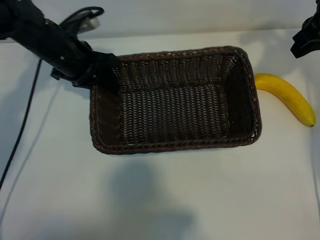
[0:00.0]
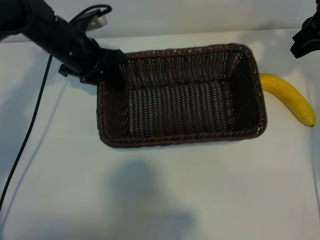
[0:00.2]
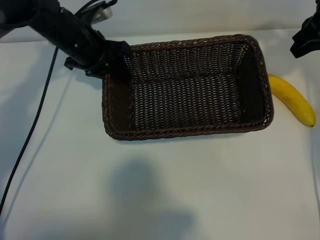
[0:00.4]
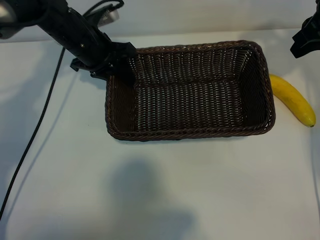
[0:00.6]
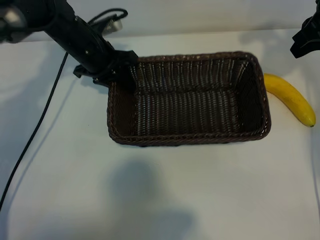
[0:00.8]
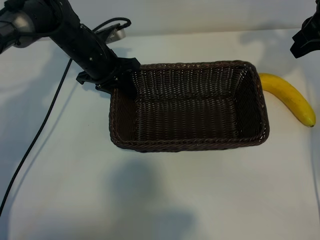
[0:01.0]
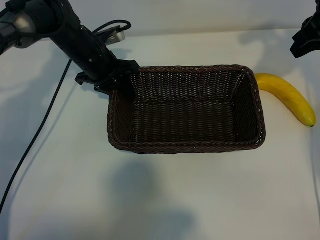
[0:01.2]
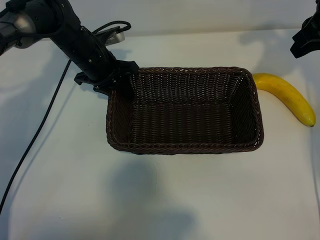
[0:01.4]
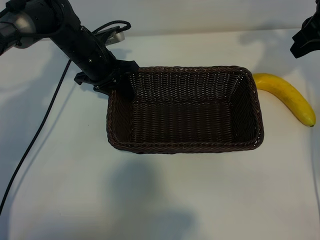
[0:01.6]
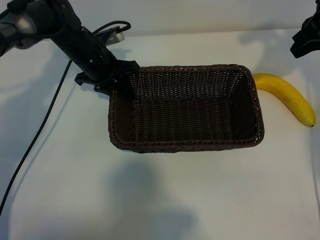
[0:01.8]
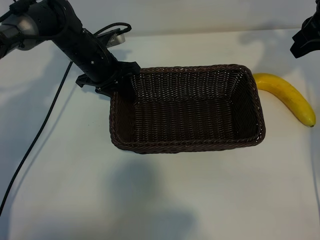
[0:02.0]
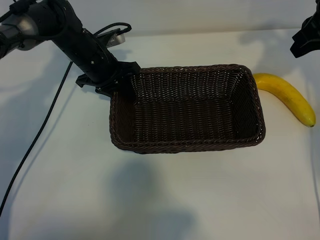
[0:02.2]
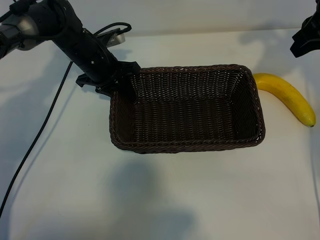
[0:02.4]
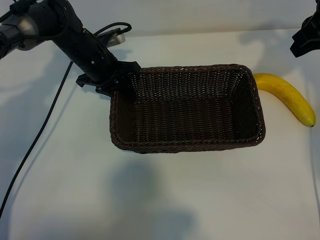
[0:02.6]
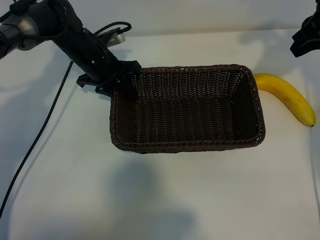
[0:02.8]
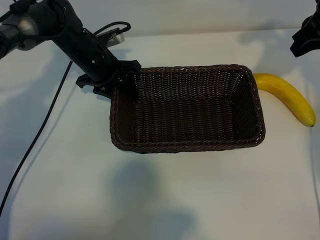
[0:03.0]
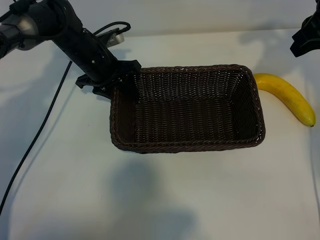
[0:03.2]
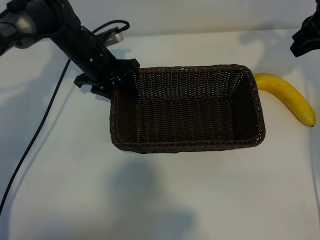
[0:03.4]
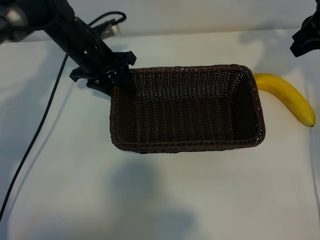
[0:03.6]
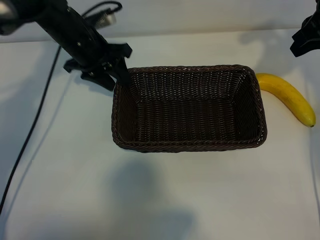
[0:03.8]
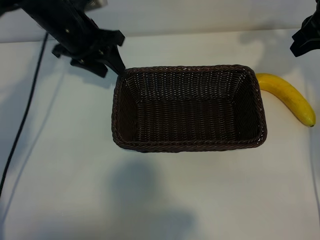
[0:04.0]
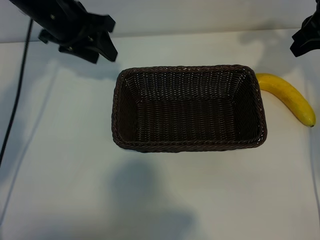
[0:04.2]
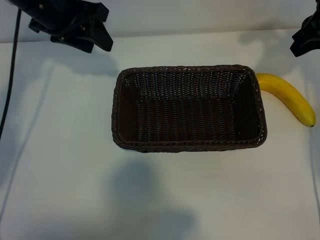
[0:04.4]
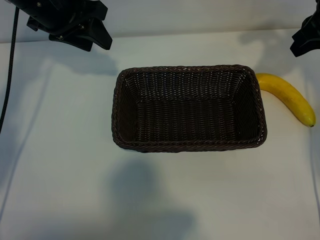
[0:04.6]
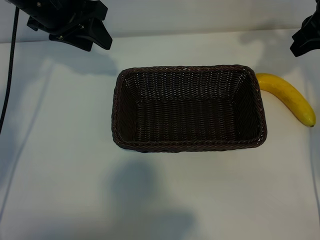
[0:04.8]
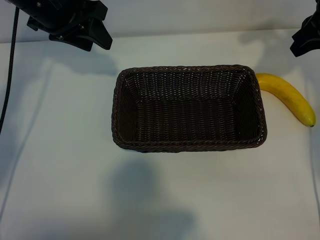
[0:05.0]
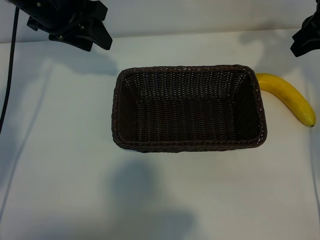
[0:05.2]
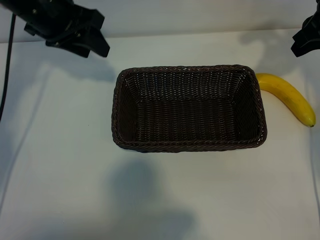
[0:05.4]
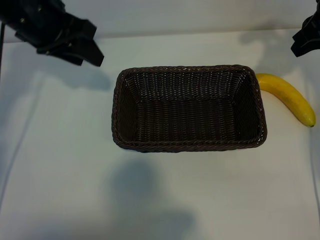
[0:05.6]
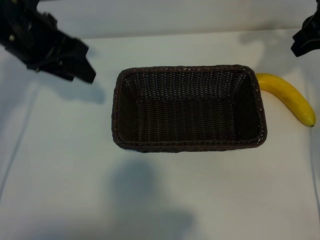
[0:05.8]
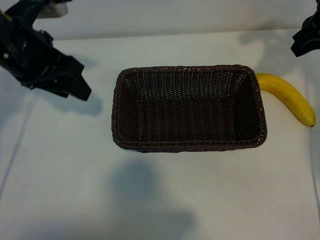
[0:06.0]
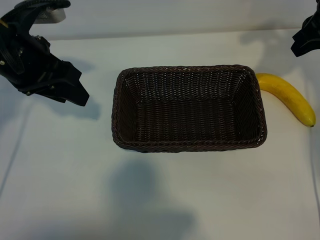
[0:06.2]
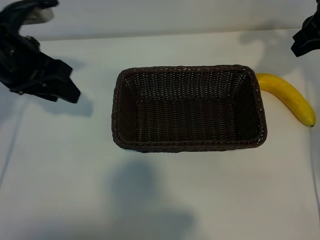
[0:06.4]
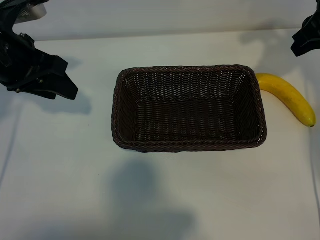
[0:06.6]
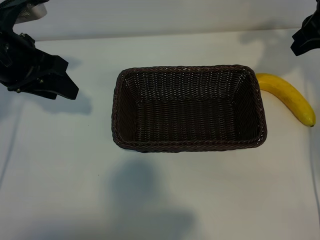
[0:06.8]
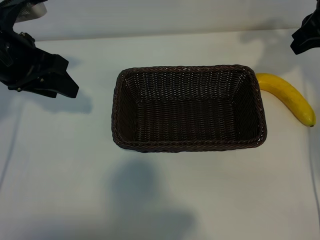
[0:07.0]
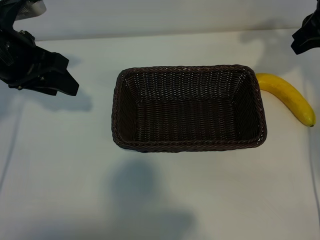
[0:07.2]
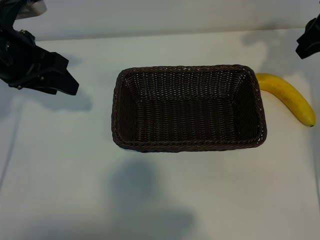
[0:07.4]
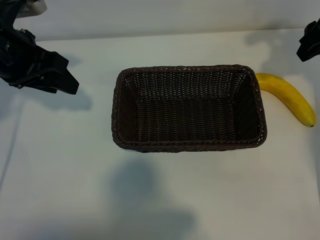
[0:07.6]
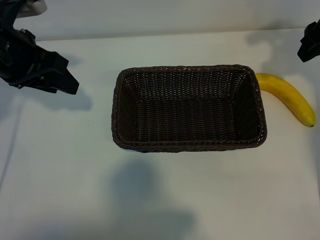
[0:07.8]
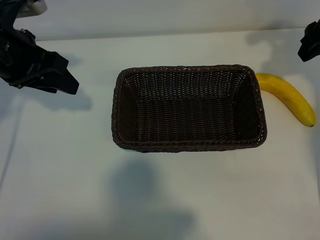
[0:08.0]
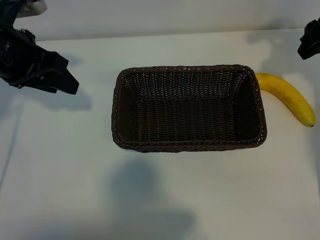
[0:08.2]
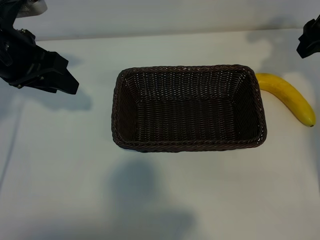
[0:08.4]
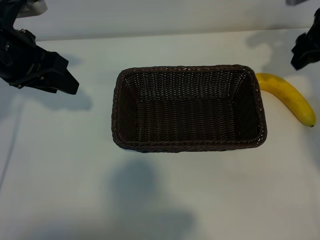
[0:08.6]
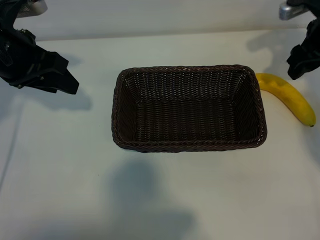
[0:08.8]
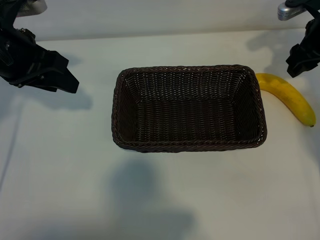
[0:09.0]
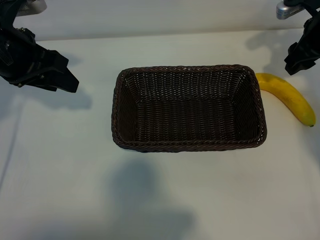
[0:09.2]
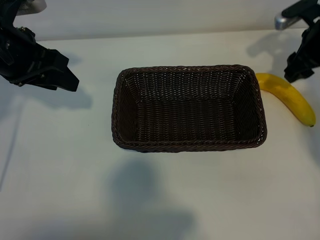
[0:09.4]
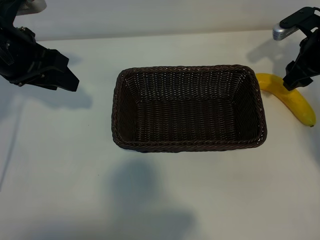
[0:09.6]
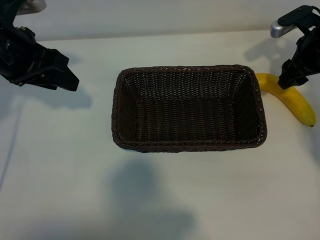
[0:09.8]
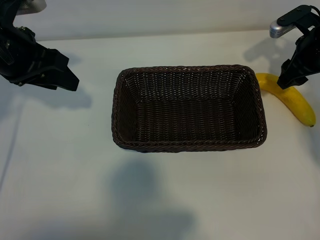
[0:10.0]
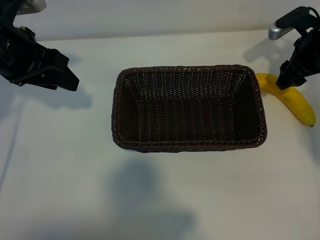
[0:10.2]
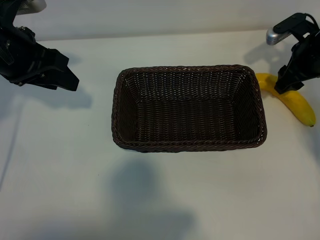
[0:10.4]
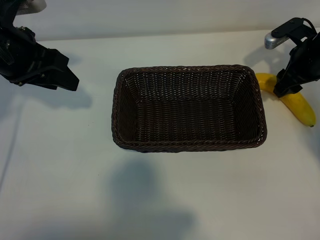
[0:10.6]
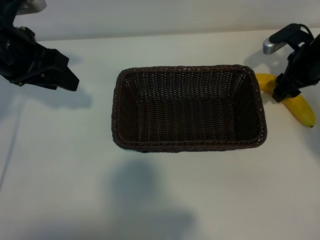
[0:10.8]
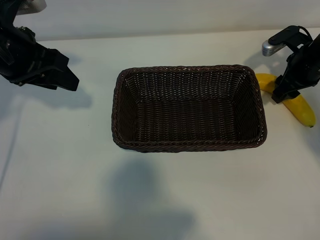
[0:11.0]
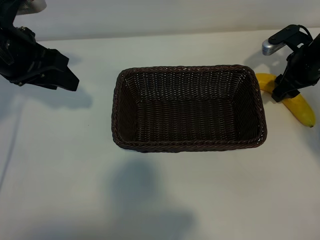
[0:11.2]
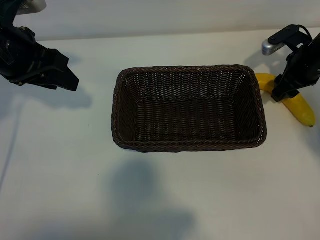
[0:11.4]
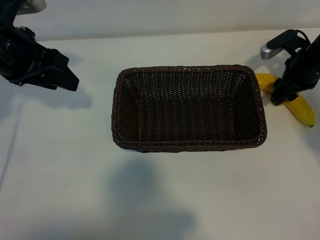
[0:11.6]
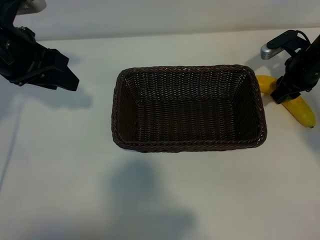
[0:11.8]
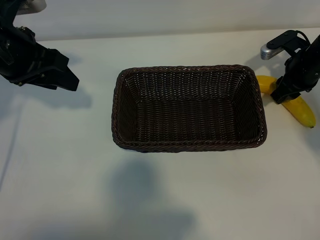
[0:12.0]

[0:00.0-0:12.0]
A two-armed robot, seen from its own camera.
Task of the whole recording: pick up the banana and put it into the basket.
Step, 0:00.0 to 0:03.6: Place the basket in the center of the table with the left gripper.

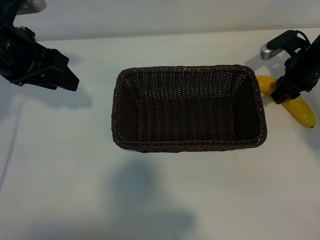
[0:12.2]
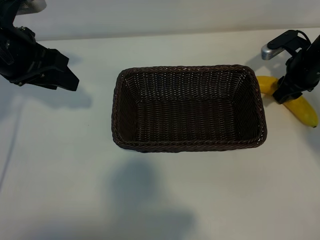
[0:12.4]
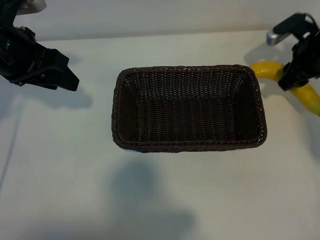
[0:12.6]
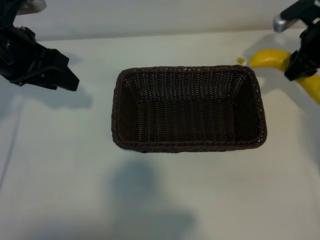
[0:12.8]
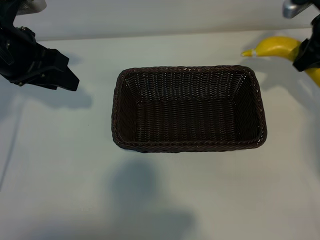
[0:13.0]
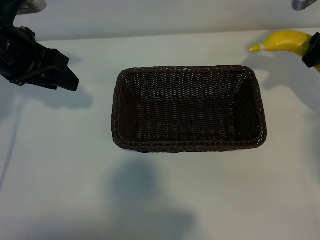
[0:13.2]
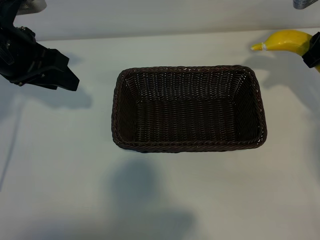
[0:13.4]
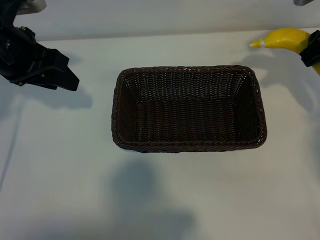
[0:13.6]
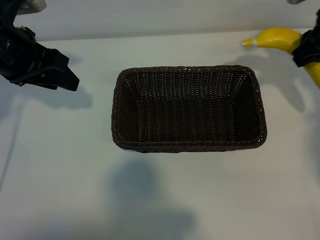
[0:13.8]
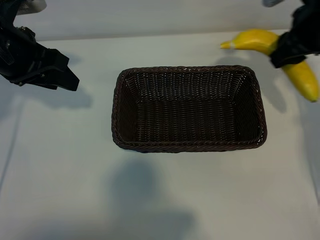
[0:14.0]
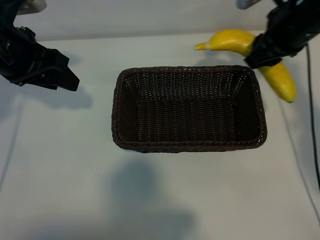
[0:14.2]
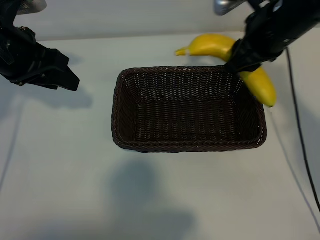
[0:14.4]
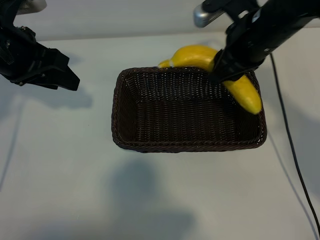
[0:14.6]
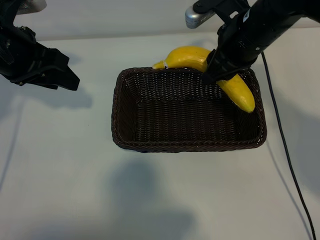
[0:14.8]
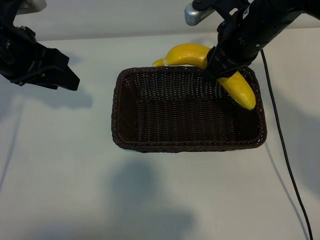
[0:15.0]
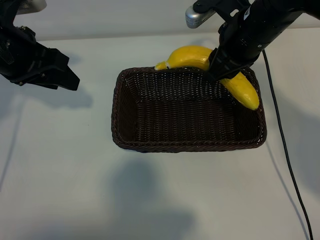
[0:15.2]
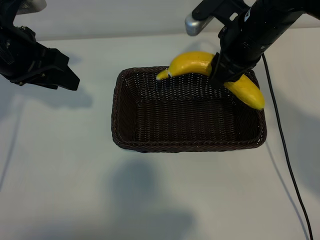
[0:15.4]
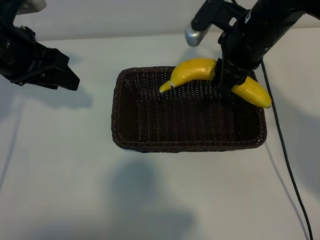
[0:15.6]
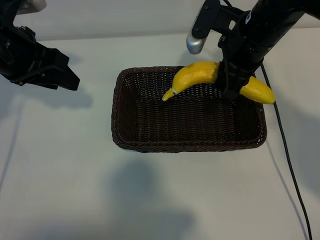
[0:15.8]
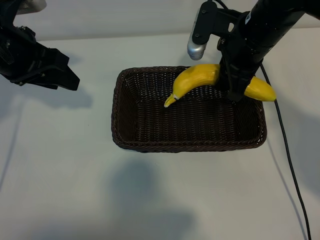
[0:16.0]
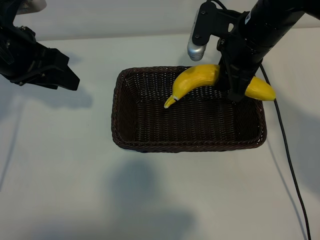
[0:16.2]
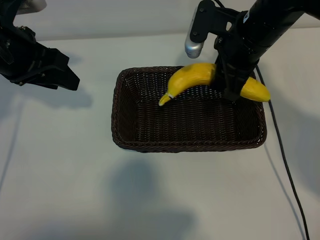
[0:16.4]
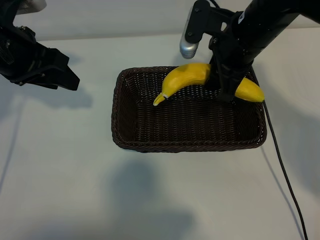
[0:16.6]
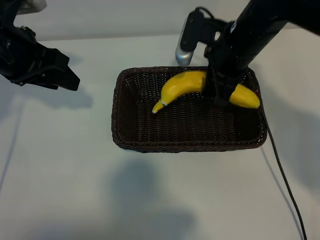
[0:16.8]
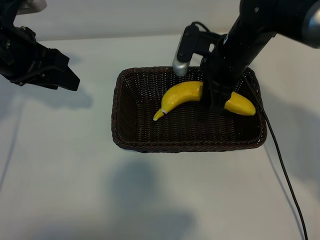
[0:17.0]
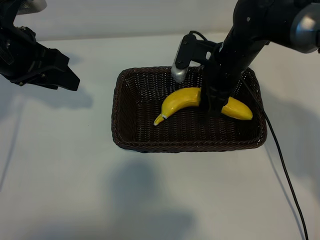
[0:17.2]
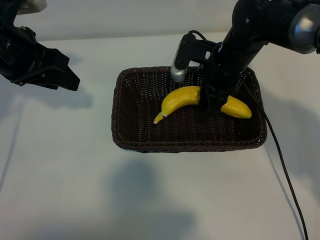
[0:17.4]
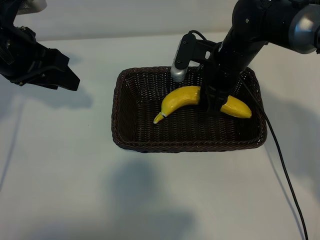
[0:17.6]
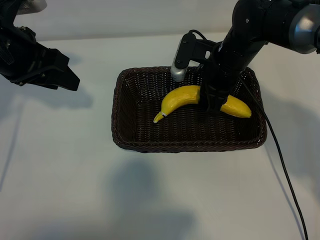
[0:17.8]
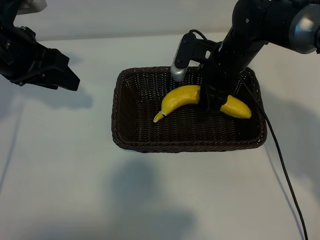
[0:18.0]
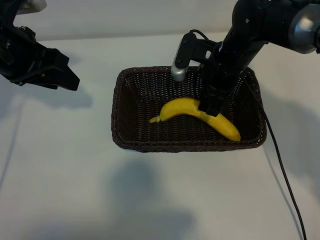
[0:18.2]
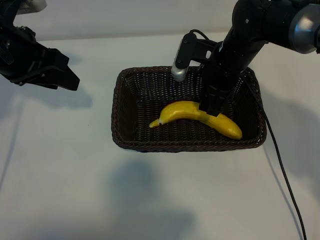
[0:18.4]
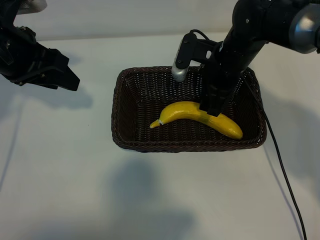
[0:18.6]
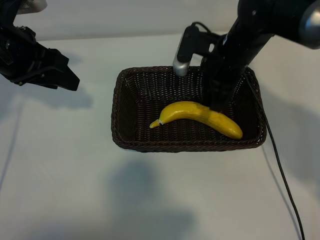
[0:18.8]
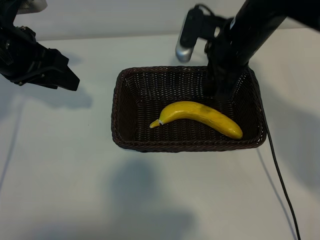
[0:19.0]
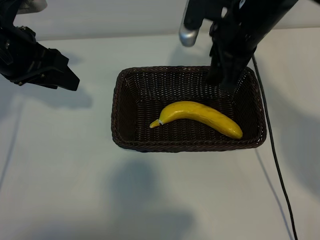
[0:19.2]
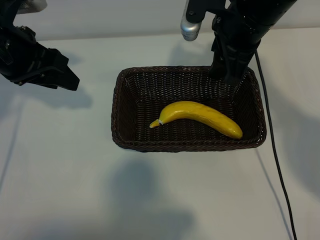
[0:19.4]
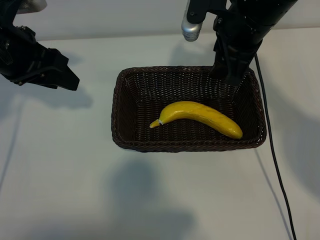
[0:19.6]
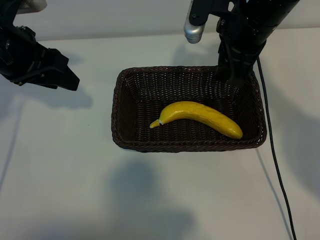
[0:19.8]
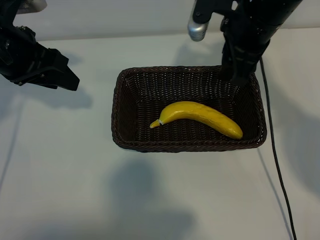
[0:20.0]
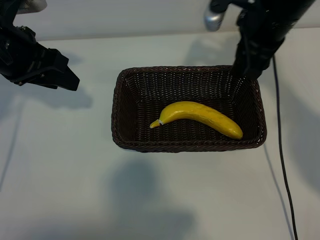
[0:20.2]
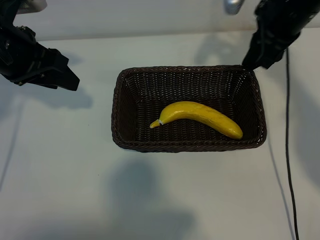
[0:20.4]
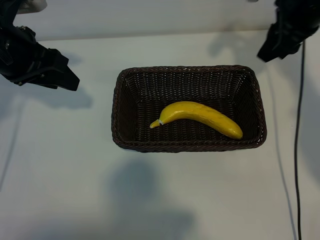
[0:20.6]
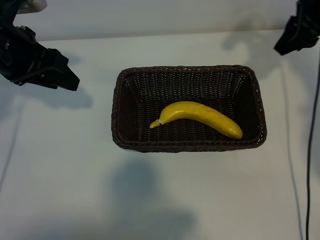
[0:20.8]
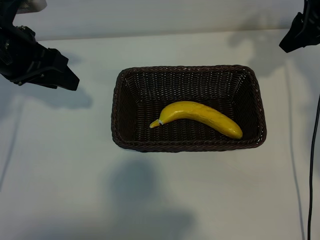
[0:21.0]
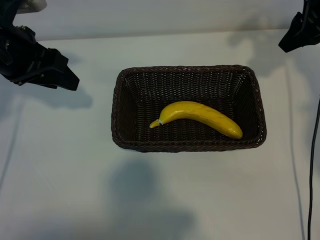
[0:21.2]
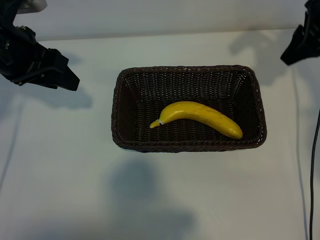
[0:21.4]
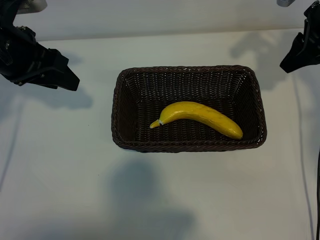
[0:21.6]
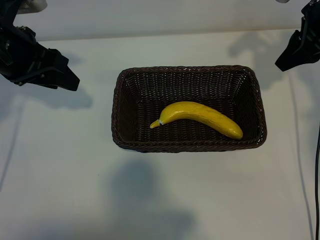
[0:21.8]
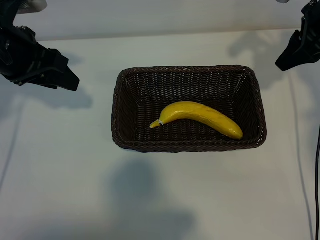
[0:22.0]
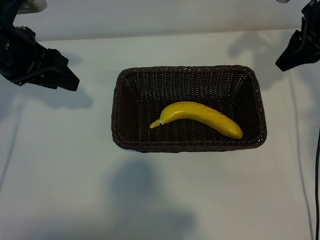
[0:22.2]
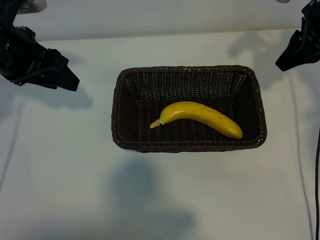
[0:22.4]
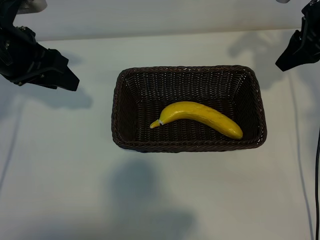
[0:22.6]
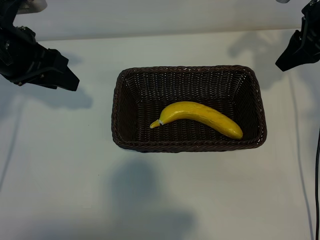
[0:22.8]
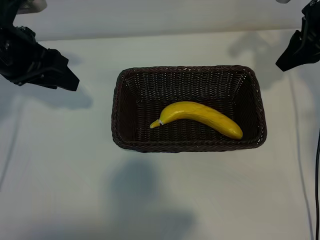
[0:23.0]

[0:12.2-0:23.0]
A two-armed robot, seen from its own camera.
Task of the whole recording: pick up the banana and put it into the basket.
Step, 0:12.4 to 0:18.4: Place the banana in the basket with right gripper.
